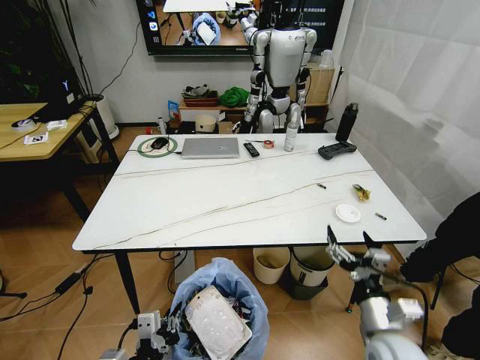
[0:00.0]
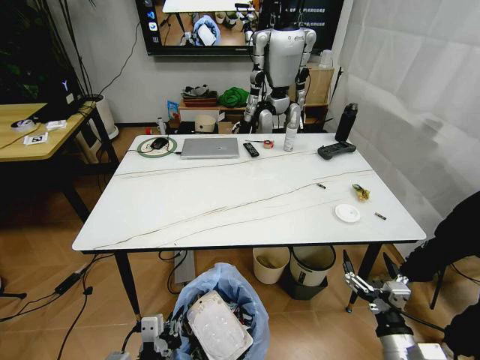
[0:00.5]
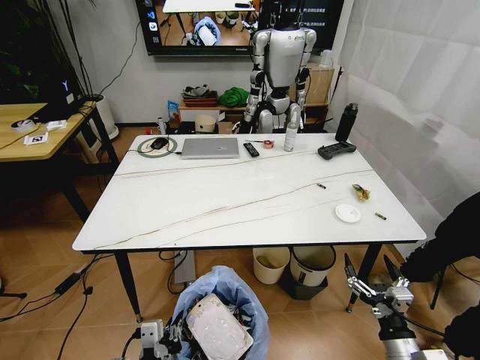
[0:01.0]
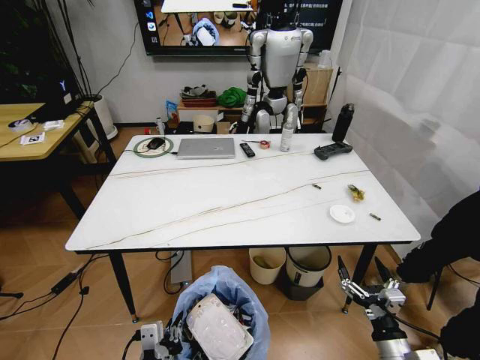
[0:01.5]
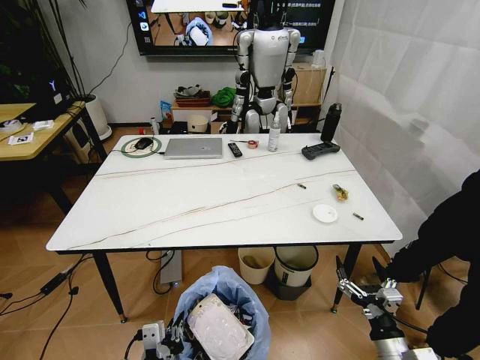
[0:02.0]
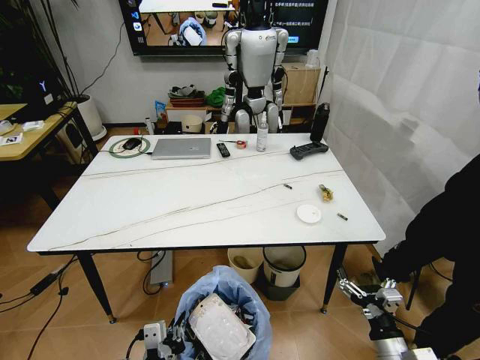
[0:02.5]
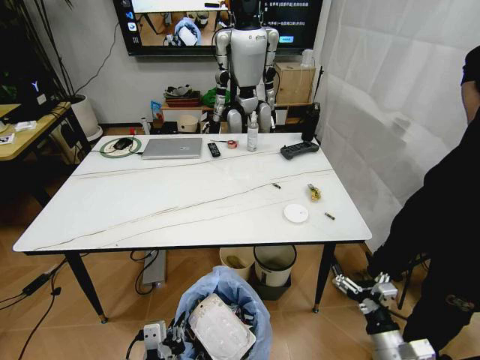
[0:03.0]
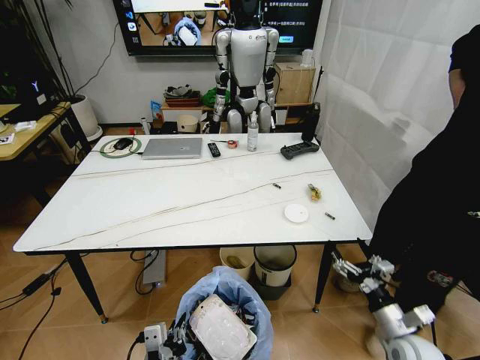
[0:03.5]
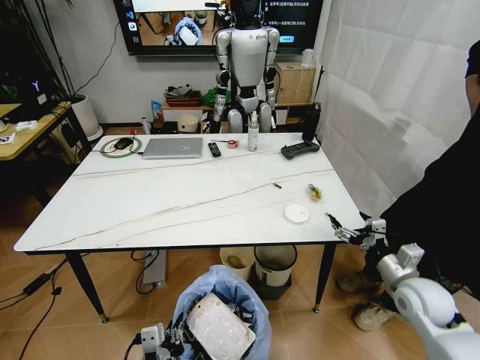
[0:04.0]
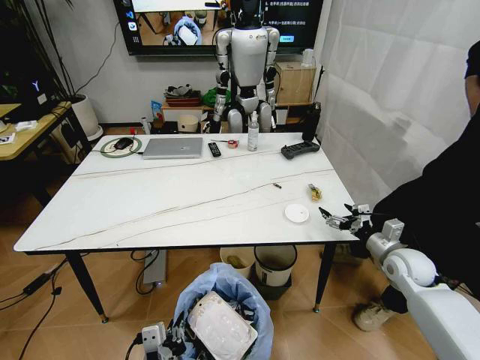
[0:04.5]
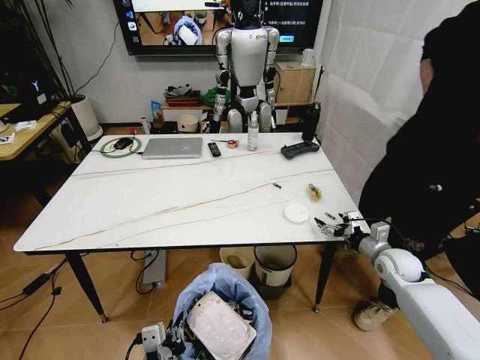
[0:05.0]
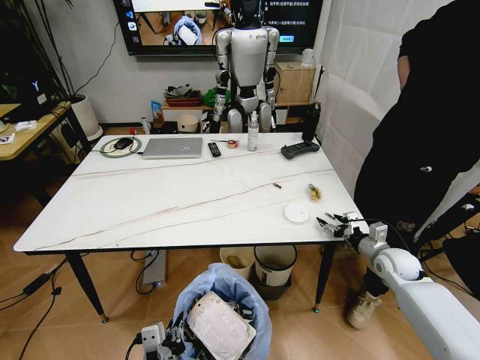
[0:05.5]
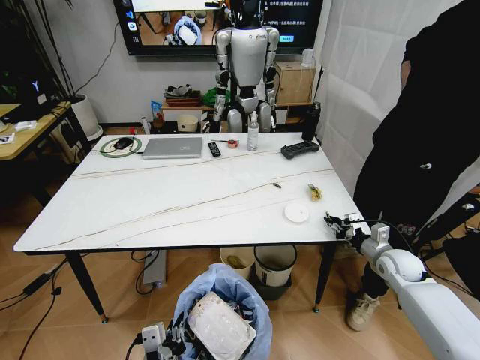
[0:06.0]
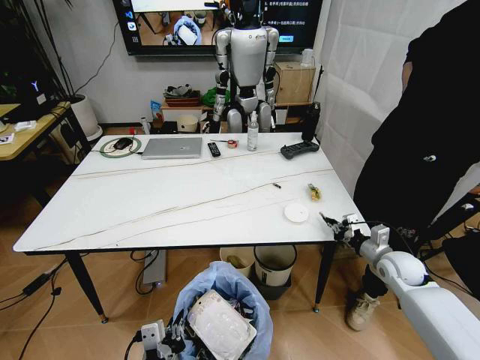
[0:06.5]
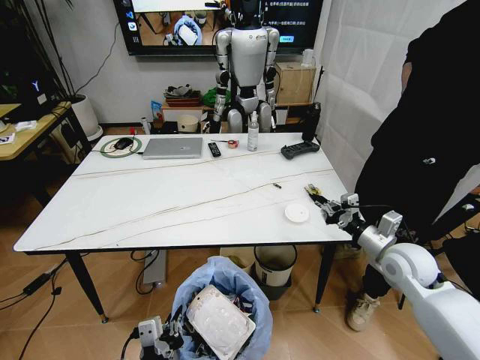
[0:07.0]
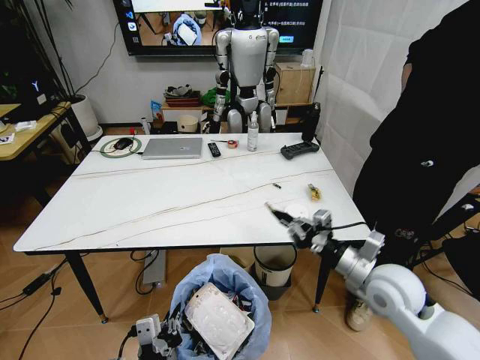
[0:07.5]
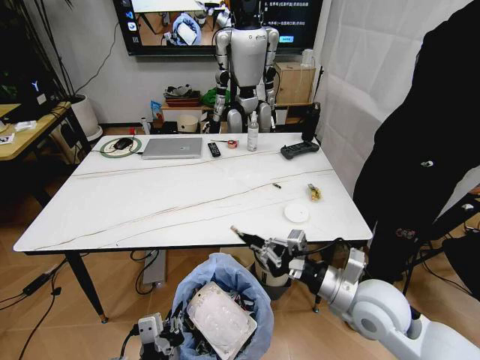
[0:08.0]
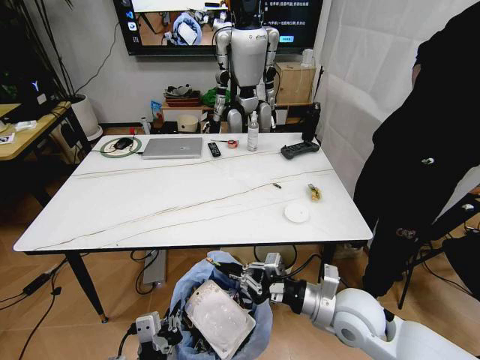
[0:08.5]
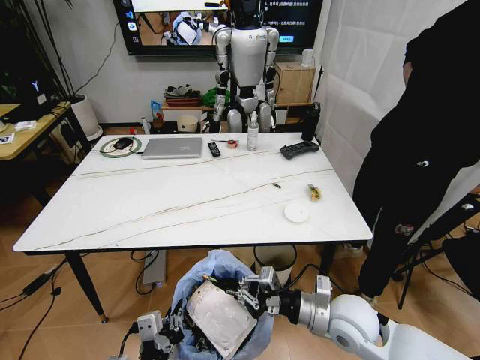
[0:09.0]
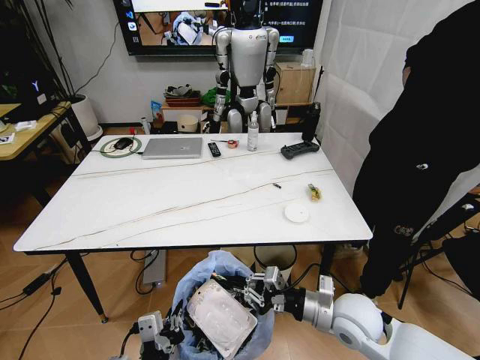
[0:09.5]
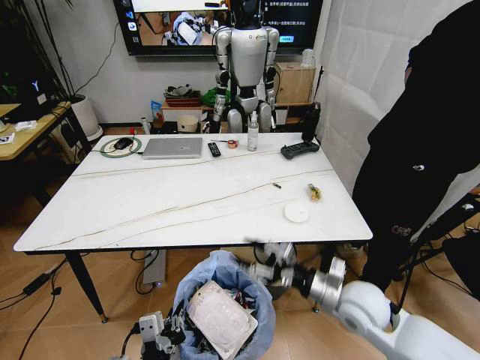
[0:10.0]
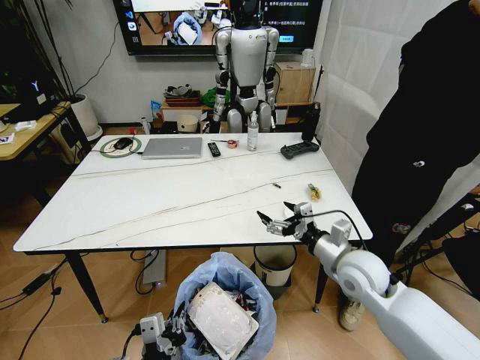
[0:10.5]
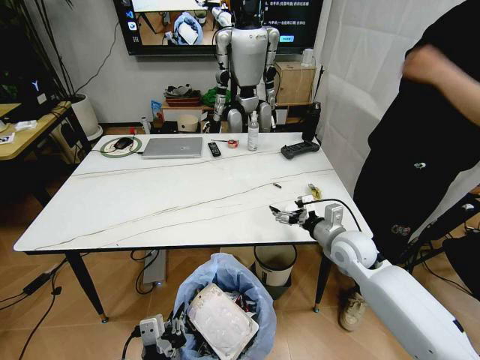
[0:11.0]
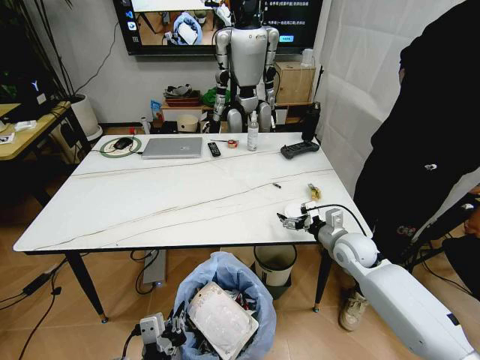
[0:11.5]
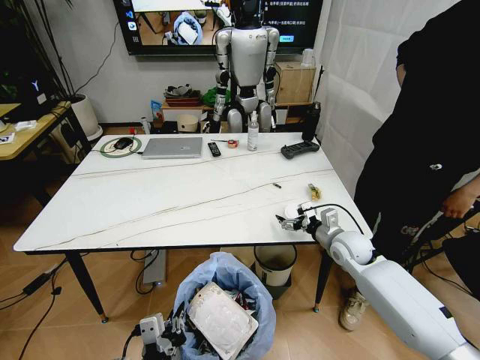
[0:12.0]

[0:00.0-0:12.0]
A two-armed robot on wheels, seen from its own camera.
Task of the whole recording: Pick up the trash bin and place the trash from the table into it.
0:00.0 to 0:02.0: The right gripper heads downward and backward, covering about 10 cm.
0:02.0 to 0:04.0: The right gripper moves forward and upward, roughly 15 cm.
0:04.0 to 0:06.0: The right gripper is displaced forward and downward by about 15 cm, and closes.
0:06.0 to 0:08.0: The right gripper goes about 25 cm to the left, backward and upward.
0:08.0 to 0:10.0: The right gripper travels downward by some 5 cm, and opens.
0:10.0 to 0:12.0: The right gripper goes roughly 15 cm forward, and opens up.

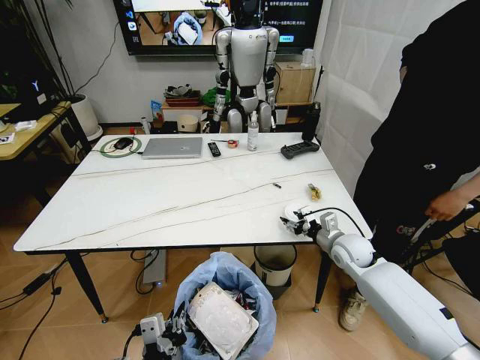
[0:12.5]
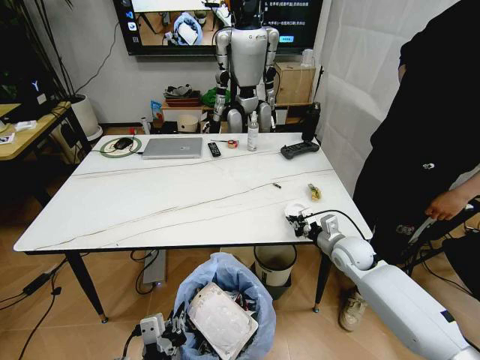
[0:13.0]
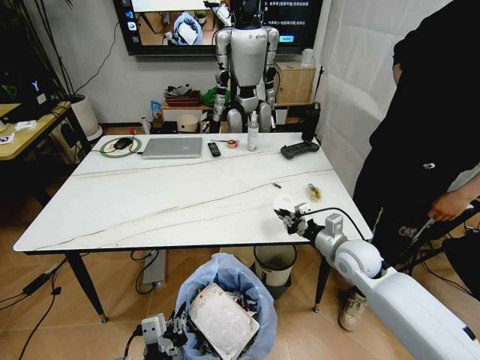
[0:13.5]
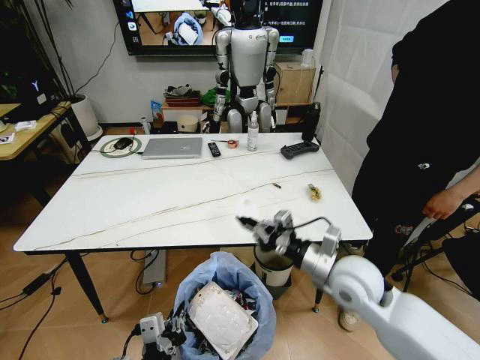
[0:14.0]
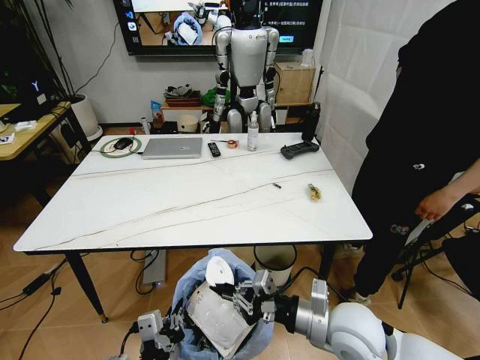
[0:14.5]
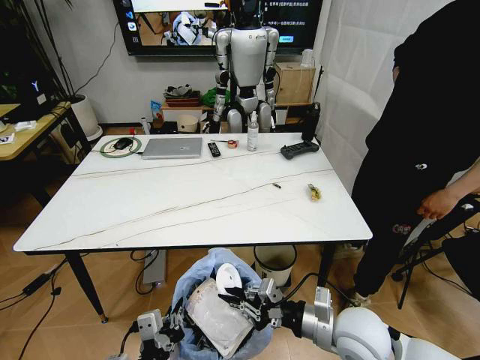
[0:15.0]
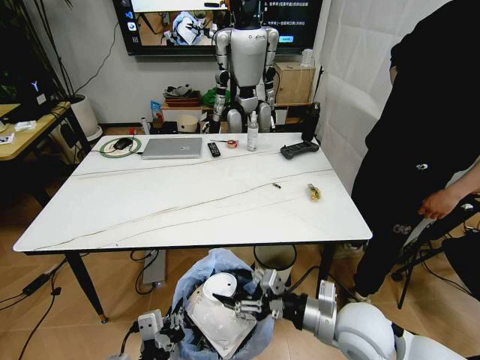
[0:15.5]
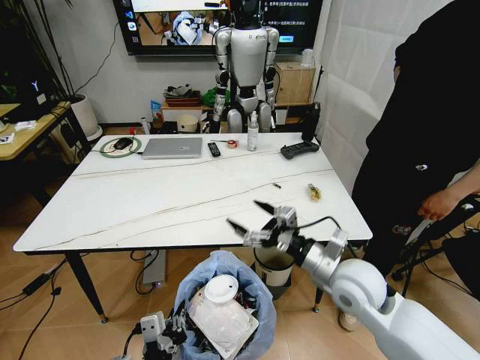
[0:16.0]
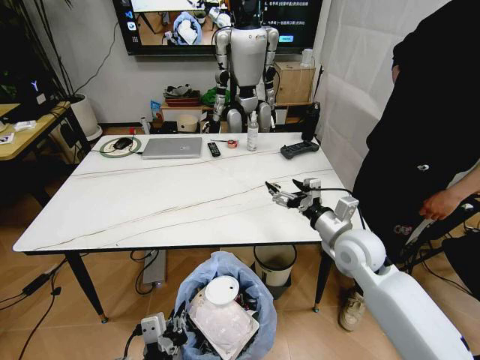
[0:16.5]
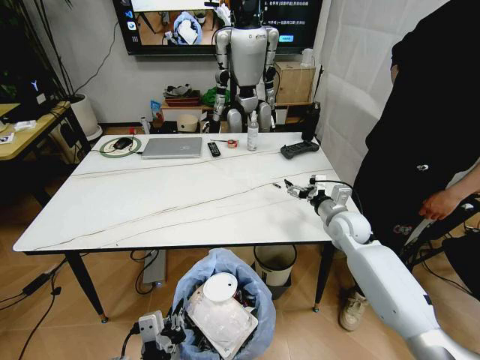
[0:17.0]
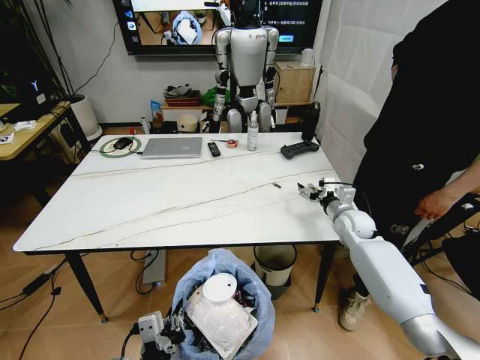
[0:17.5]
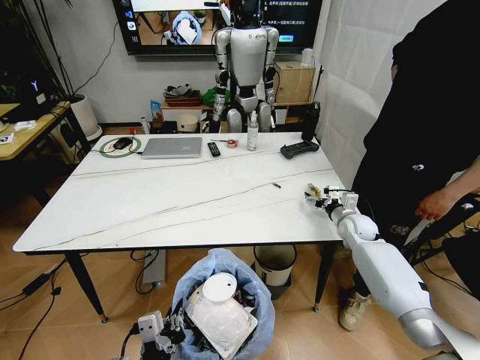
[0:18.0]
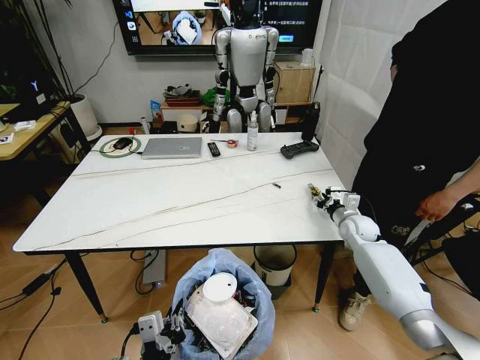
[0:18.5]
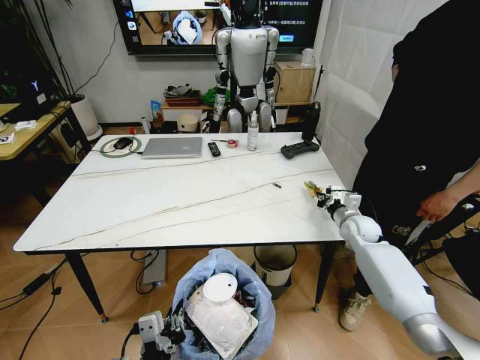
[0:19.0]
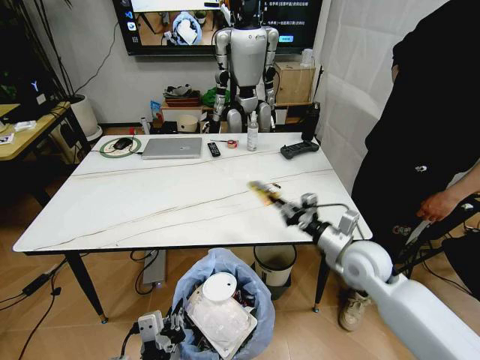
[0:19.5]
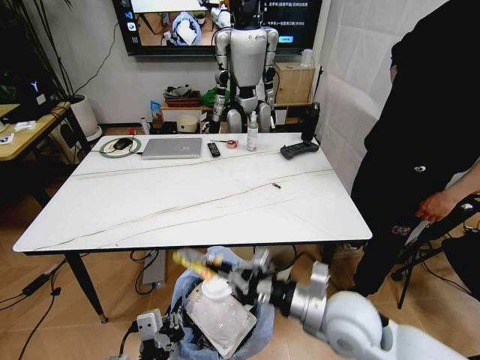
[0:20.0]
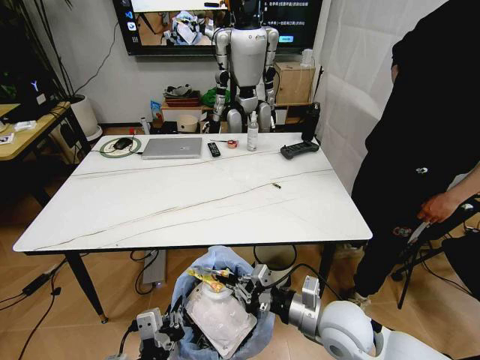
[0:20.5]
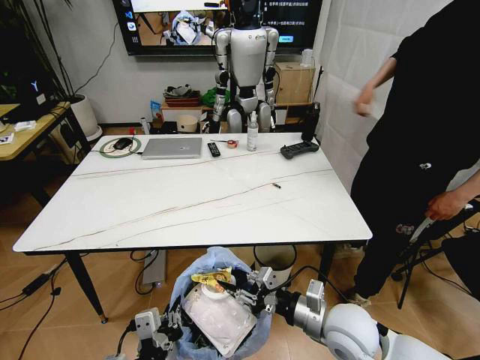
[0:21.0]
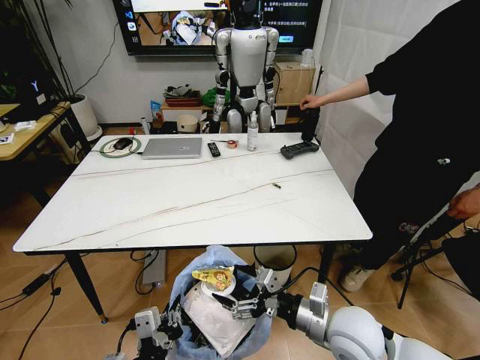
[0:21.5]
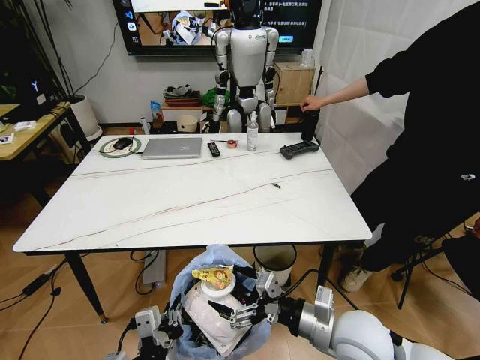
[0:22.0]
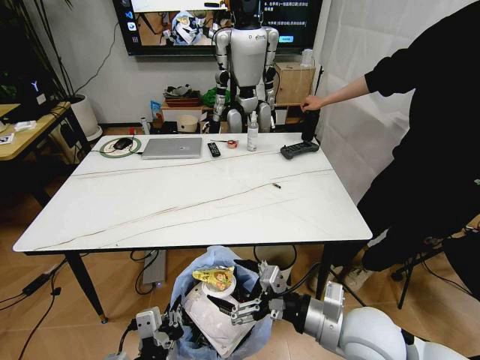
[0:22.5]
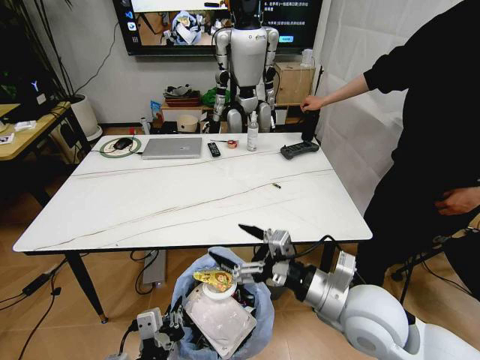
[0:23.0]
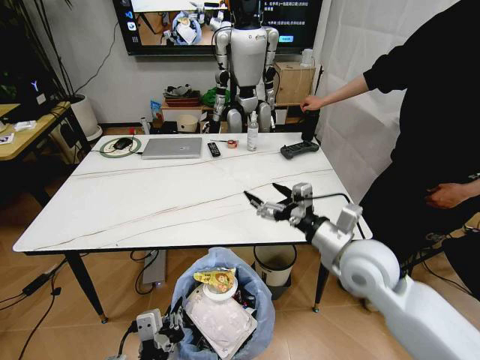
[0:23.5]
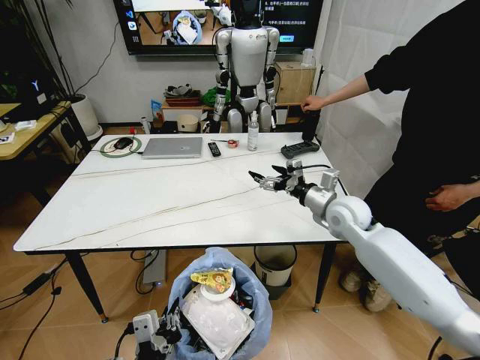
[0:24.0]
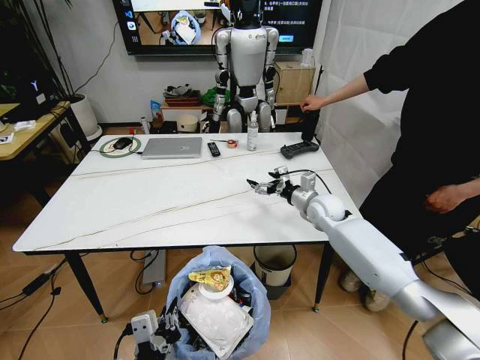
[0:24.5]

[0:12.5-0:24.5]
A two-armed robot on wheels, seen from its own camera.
Task of the whole recording: Pick up the trash bin and place the trash from the table into it.
0:12.5 to 0:14.5: The right gripper is displaced backward and to the left by about 20 cm, and closes up.
0:14.5 to 0:16.5: The right gripper shifts roughly 15 cm forward, and opens its fingers.
0:16.5 to 0:18.5: The right gripper is displaced forward, downward and to the right by about 20 cm, and closes its fingers.
0:18.5 to 0:20.5: The right gripper goes approximately 30 cm backward and to the left, and closes up.
0:20.5 to 0:22.5: The right gripper shifts about 5 cm upward, and opens.
0:22.5 to 0:24.5: The right gripper travels forward by some 30 cm.

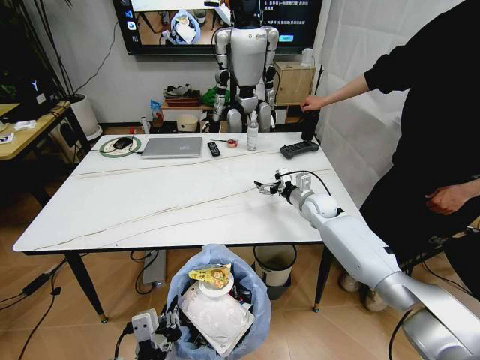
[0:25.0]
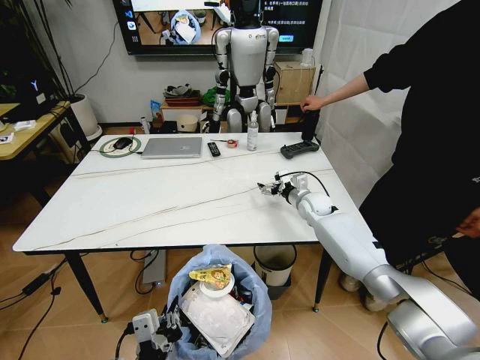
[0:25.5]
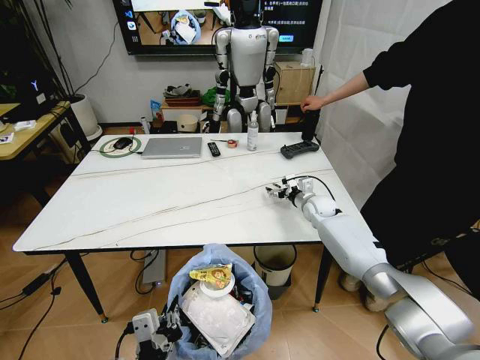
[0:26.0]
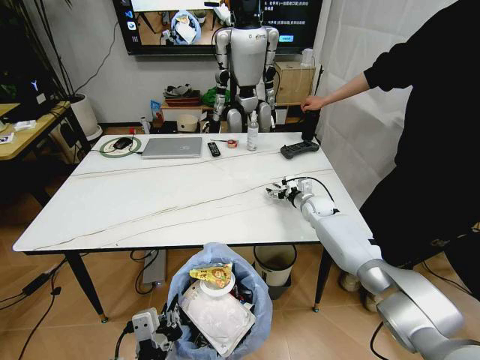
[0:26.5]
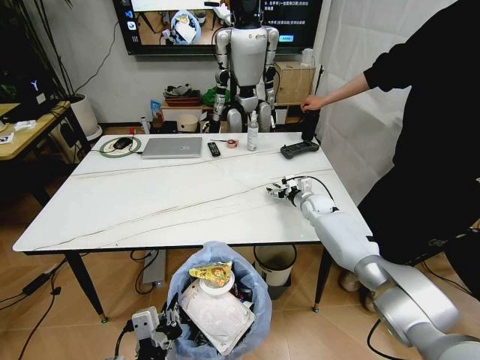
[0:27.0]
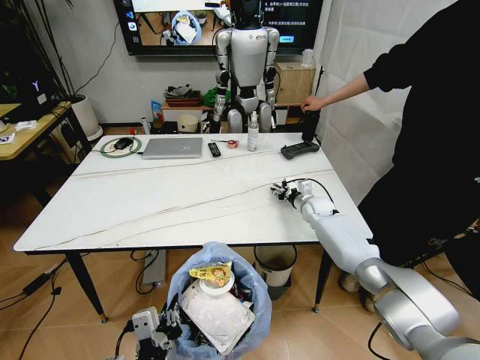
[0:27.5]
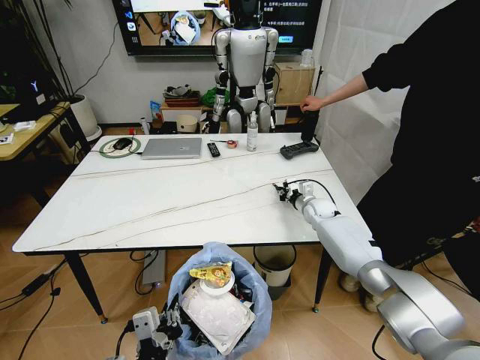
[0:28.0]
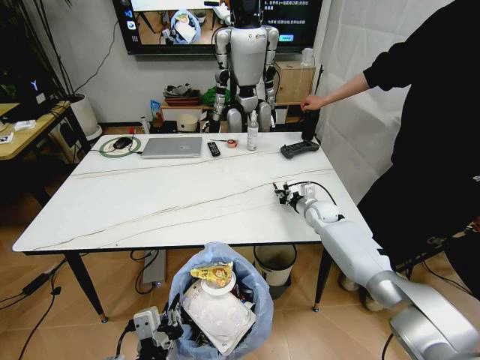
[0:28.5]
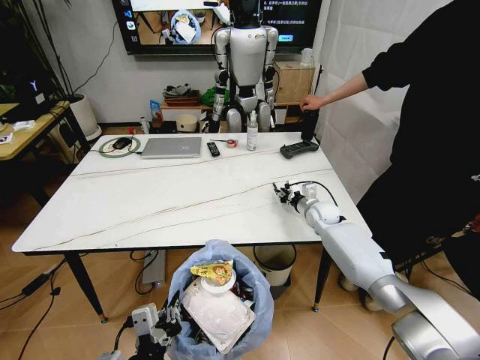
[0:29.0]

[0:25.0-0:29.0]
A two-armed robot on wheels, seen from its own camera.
Task of the whole recording: Pick up the trash bin and place the trash from the table into it.
0:25.0 to 0:27.0: The right gripper ends up some 5 cm from where it was.
0:27.0 to 0:29.0: The right gripper closes its fingers.
